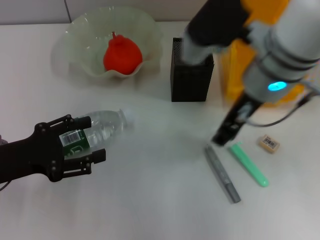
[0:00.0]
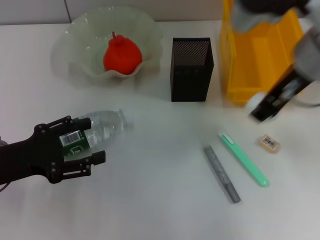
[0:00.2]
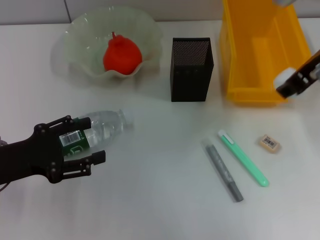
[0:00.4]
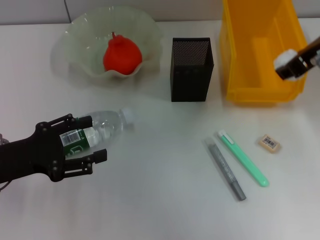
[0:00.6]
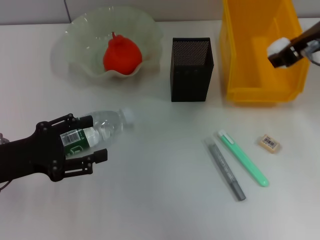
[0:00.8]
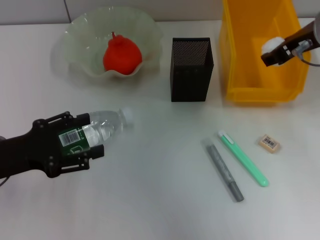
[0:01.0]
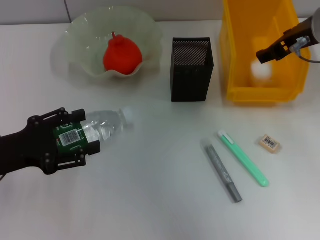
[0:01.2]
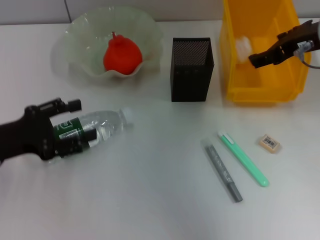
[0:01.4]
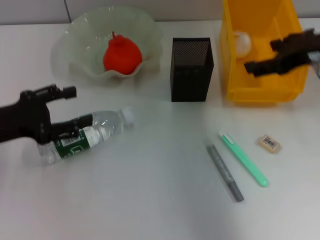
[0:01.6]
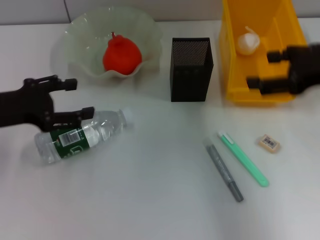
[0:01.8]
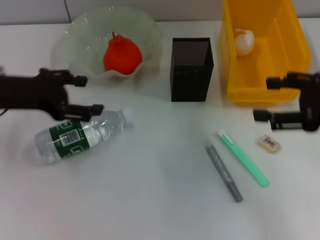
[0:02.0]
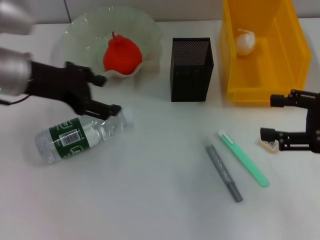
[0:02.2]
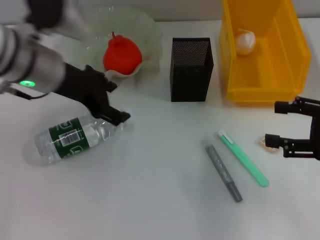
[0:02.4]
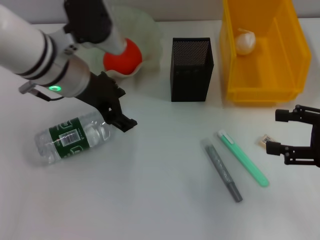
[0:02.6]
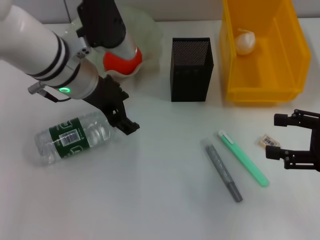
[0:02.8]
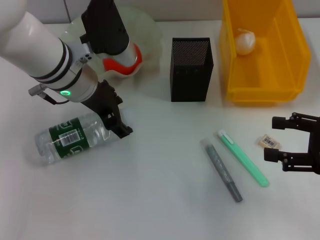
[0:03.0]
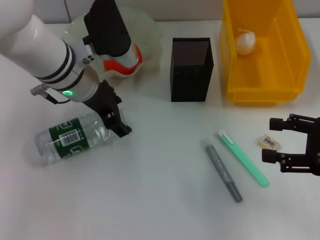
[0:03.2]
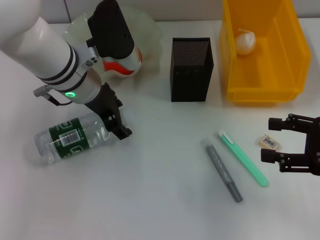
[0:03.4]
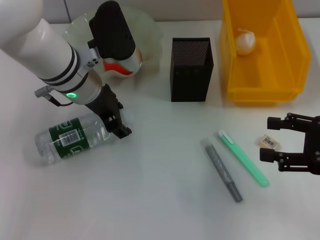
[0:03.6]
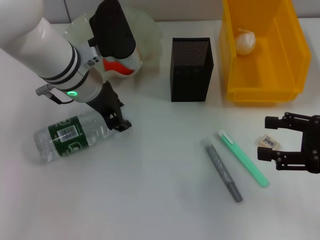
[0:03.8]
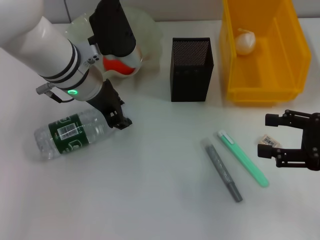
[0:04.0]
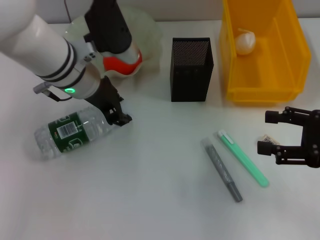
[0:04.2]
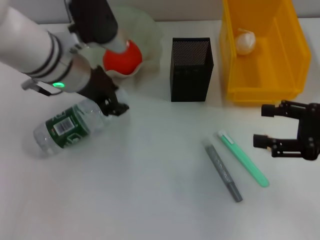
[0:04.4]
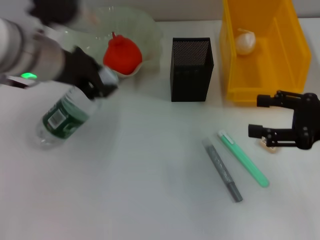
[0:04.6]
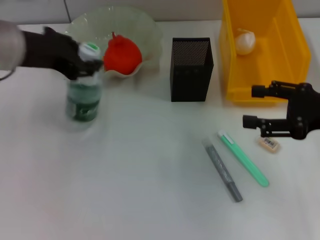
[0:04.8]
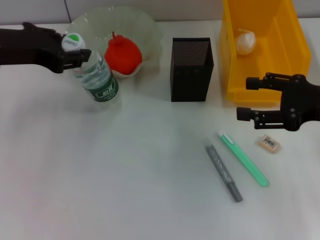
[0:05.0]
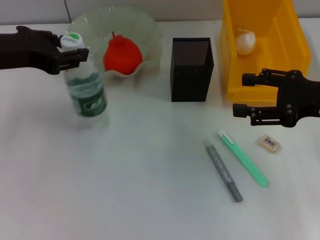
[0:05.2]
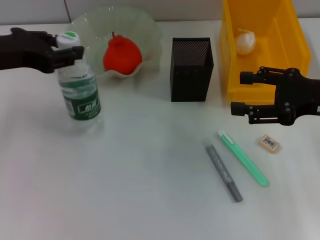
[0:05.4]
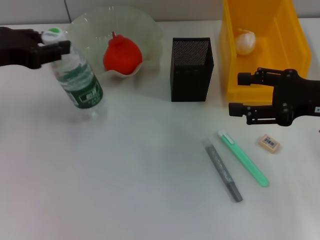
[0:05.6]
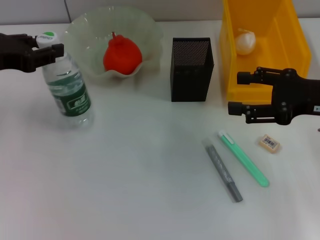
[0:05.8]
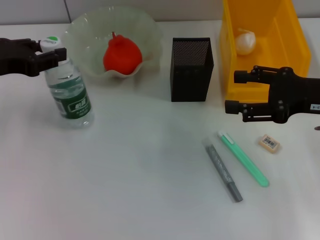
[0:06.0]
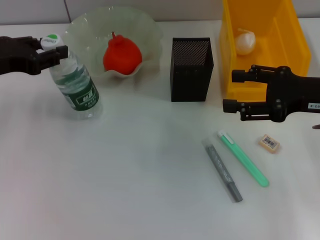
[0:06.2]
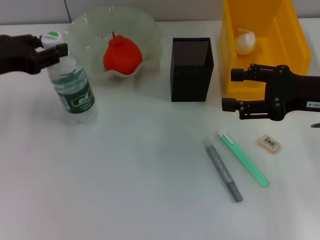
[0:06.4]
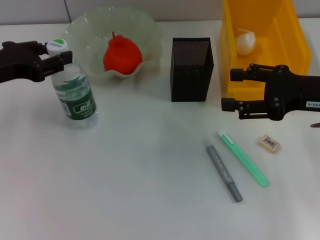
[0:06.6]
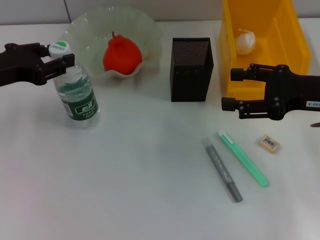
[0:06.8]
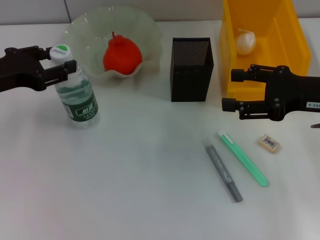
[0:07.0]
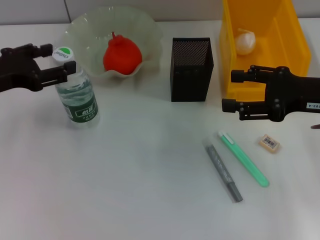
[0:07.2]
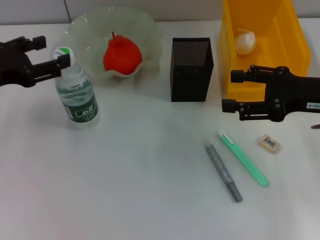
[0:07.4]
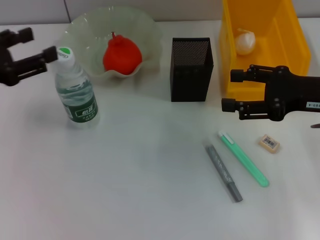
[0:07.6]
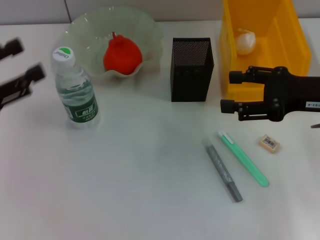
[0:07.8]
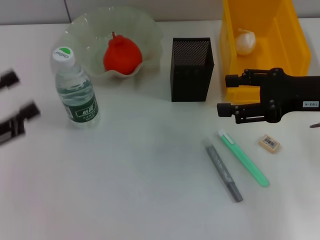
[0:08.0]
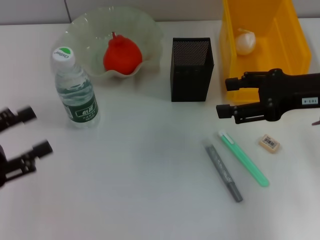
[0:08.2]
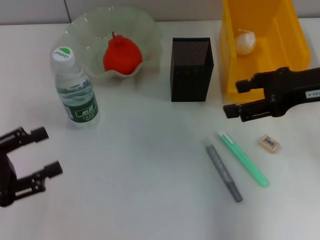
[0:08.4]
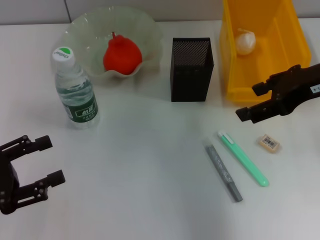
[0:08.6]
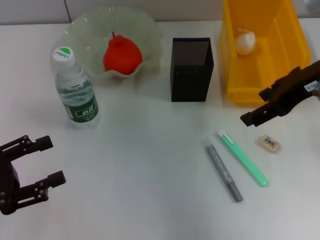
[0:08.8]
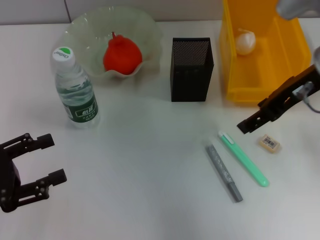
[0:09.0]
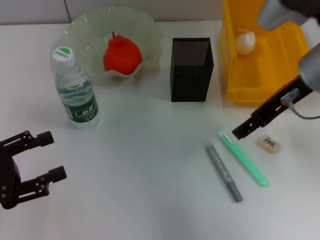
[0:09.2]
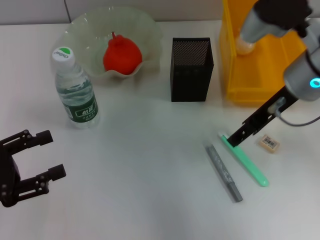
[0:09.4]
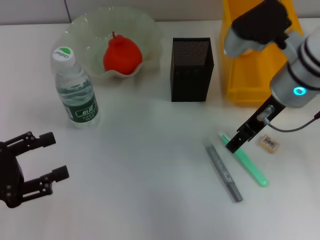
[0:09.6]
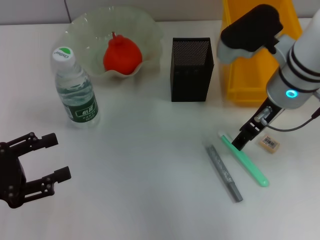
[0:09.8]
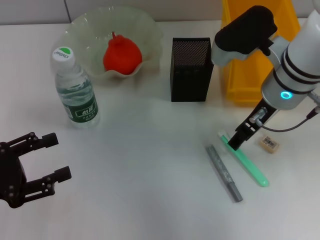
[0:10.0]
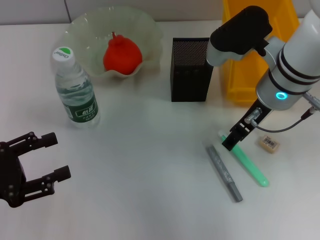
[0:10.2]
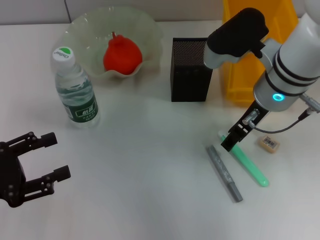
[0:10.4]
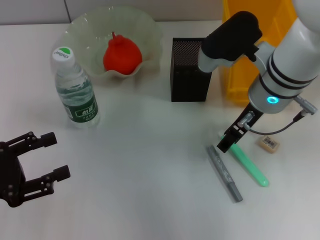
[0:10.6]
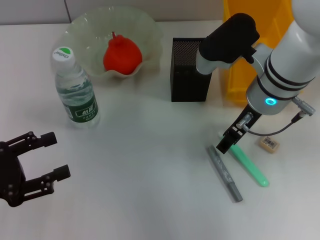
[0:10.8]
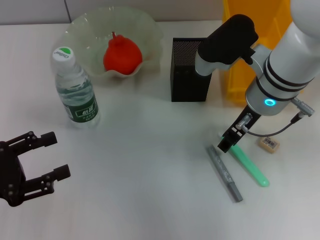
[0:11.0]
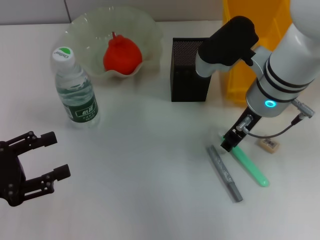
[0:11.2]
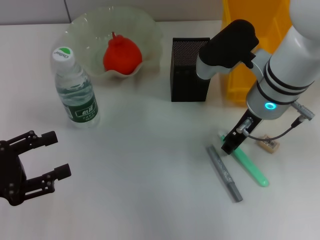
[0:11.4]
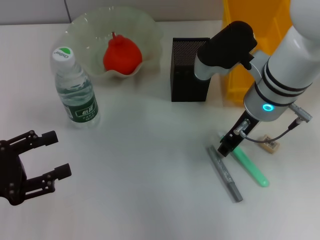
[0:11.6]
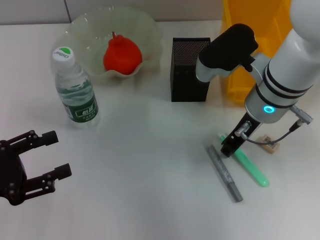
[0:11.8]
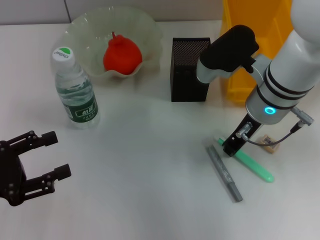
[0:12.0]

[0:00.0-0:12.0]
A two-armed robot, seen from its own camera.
Step, 0:00.0 to 0:02.0: Place the paper ball into the trash can with the right hand.
Step, 0:02.2 to 0:03.8: Grab the water bottle with the left hand.
Step, 0:04.0 to 0:07.0: Place the water bottle on the table with the left hand.
Step, 0:07.2 to 0:12.0: Grab the blue utility knife with the right hand.
0:00.0 to 0:01.6: The left gripper shifts by about 5 cm. Meanwhile the right gripper shifts approximately 15 cm to the right, and opens.
0:01.6 to 0:03.0: The right gripper shifts approximately 15 cm downward, backward and to the right; the left gripper moves to the right and forward, some 20 cm.
0:03.0 to 0:04.4: The left gripper closes its fingers.
0:04.4 to 0:06.0: The right gripper moves roughly 5 cm. The left gripper moves to the left, roughly 15 cm.
0:06.0 to 0:07.6: The left gripper ends up some 5 cm from where it was, and opens its fingers.
0:07.6 to 0:09.0: The left gripper heads backward and downward, covering roughly 10 cm. Meanwhile the right gripper goes approximately 10 cm upward and to the left.
0:09.0 to 0:10.4: The right gripper travels to the left and downward by some 10 cm.
0:10.4 to 0:12.0: The right gripper closes up.

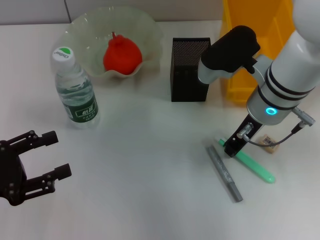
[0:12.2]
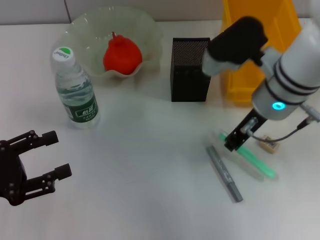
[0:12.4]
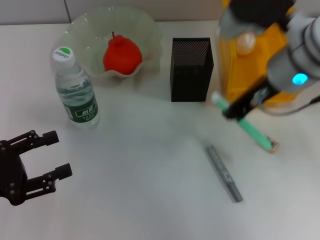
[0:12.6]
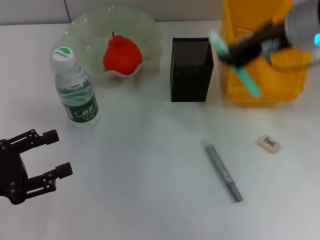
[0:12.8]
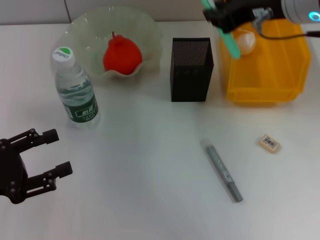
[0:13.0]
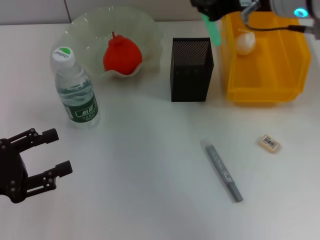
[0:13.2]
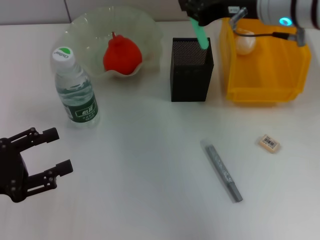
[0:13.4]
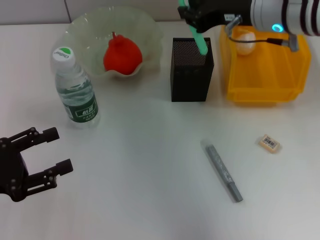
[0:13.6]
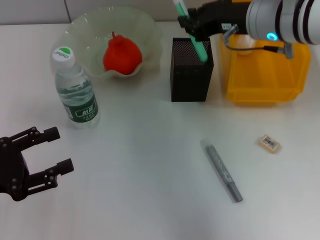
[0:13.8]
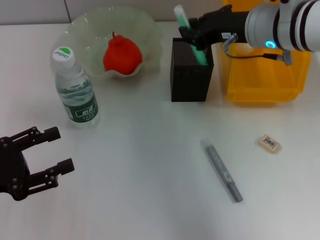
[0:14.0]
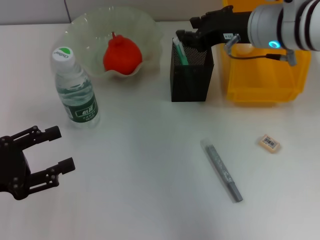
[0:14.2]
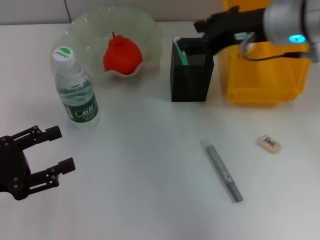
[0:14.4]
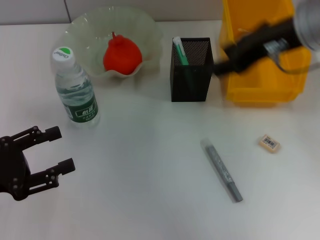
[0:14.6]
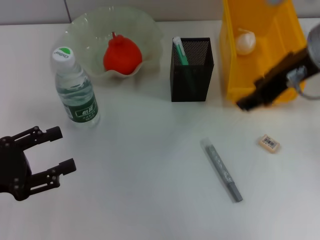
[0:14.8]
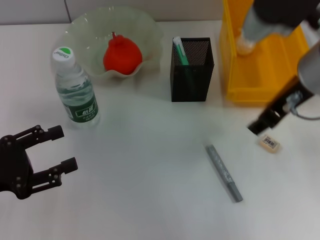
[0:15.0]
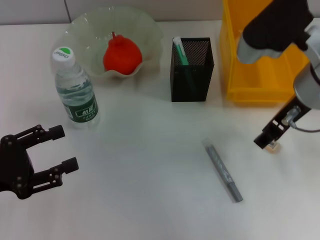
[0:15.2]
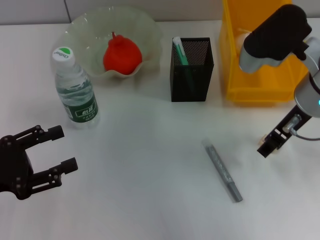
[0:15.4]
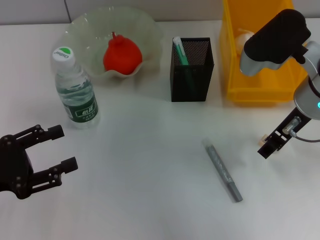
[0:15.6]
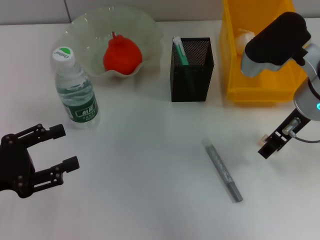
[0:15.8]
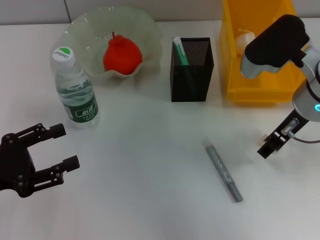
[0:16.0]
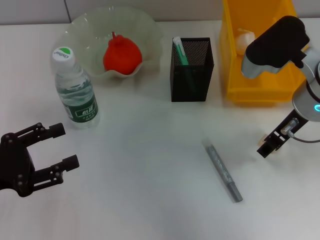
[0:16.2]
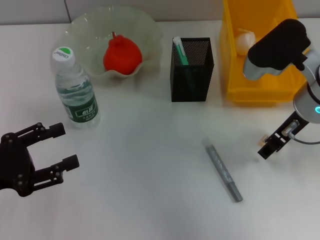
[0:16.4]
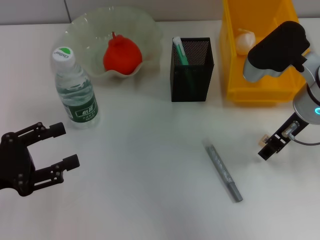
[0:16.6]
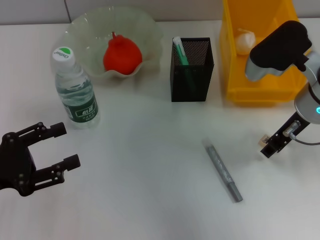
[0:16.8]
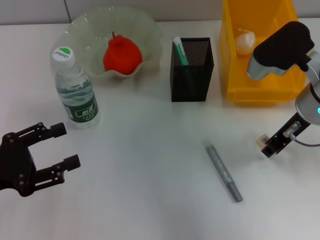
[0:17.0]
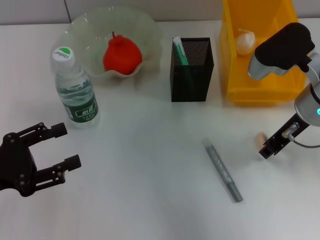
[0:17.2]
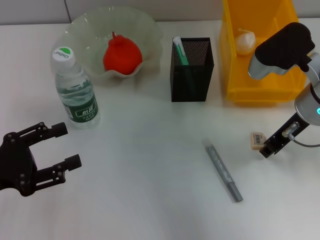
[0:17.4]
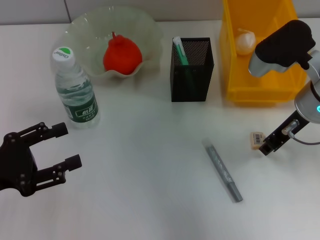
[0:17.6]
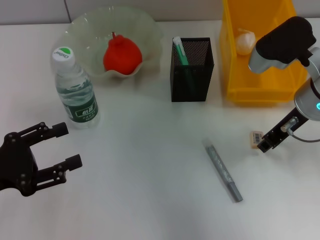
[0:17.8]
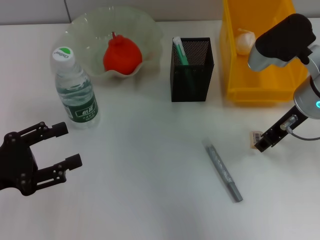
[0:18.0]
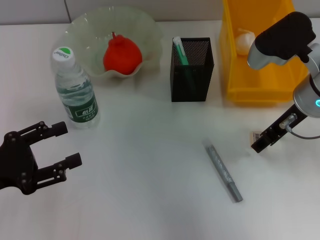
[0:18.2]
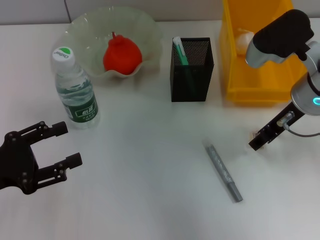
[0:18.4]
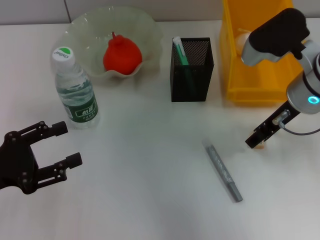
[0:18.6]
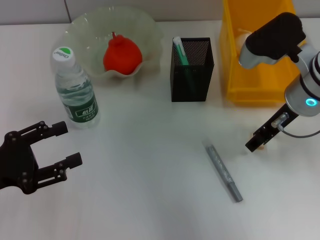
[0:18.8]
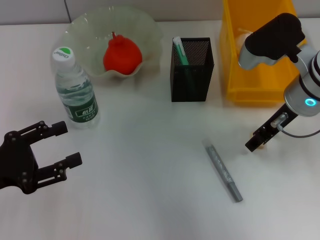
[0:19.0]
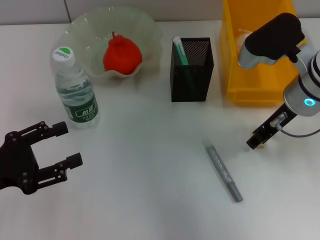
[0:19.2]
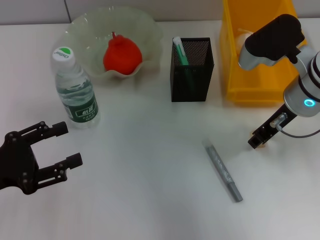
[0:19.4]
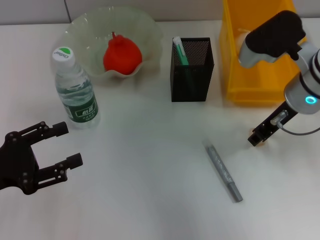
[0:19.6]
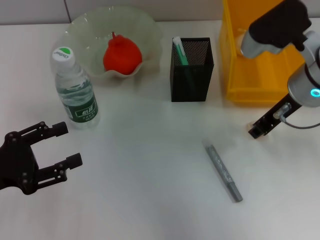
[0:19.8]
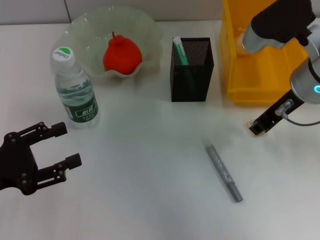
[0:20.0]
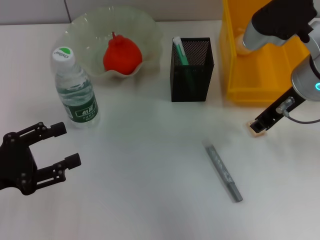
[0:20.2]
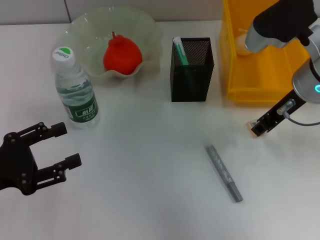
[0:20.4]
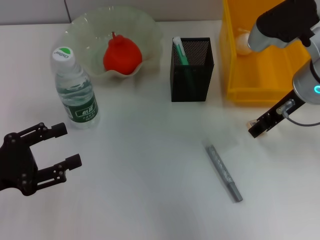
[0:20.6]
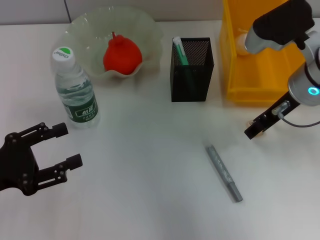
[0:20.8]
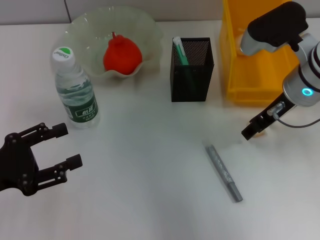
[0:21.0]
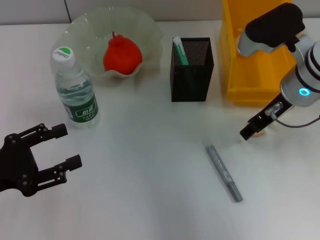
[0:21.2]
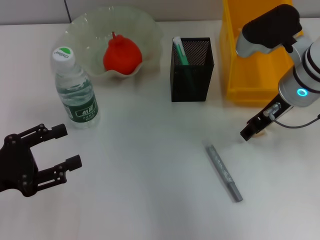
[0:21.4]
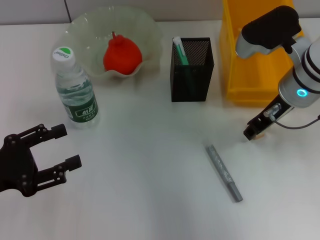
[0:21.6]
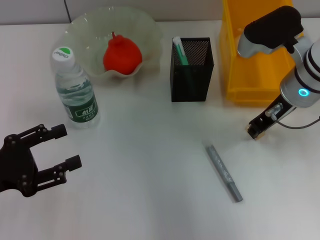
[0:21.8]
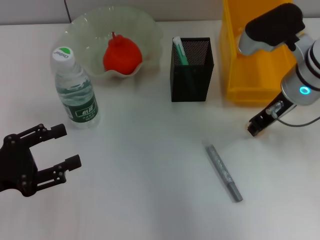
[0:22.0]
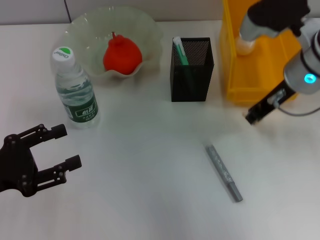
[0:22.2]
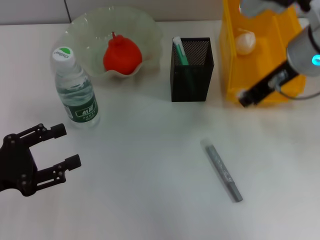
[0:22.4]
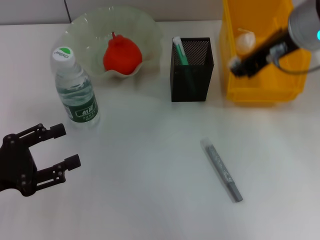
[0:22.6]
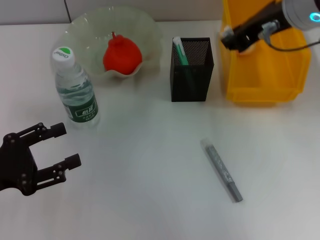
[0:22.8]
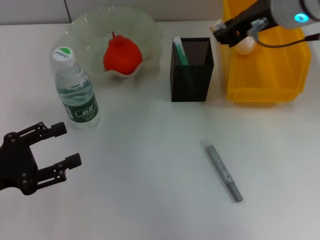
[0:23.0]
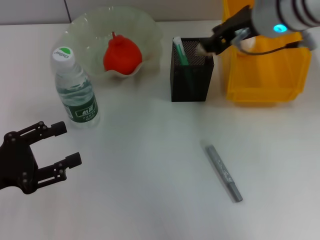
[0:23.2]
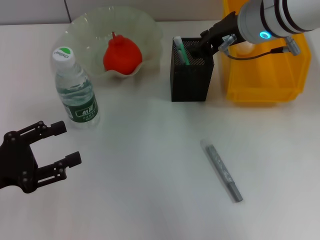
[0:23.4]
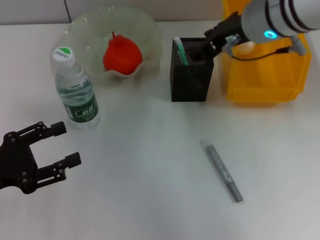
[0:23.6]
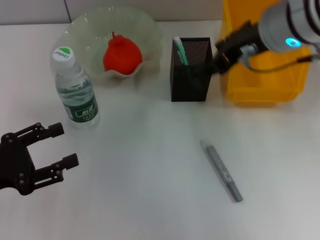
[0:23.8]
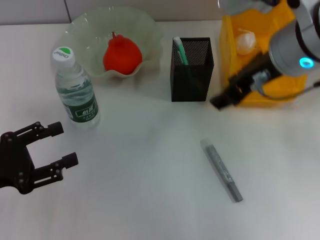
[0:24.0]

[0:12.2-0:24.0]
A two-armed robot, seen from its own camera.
Step, 0:12.2 to 0:14.0: Place the blue utility knife into the pen holder with the right hand.
Step, 0:14.4 to 0:21.8: Grab the eraser with the right hand.
Step, 0:22.0 to 0:23.2: Put the eraser into the pen holder with the right hand.
0:12.2 to 0:13.6: The right gripper moves upward, roughly 5 cm.
0:13.6 to 0:15.2: The right gripper goes about 5 cm backward, and opens.
0:15.2 to 0:16.6: The right gripper ends up approximately 5 cm from where it was.
0:16.6 to 0:21.0: The grippers move only a little.
0:21.0 to 0:22.6: The right gripper heads upward, covering roughly 10 cm, and closes its fingers.
0:22.6 to 0:24.0: The right gripper opens.
